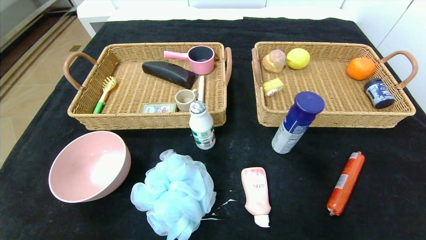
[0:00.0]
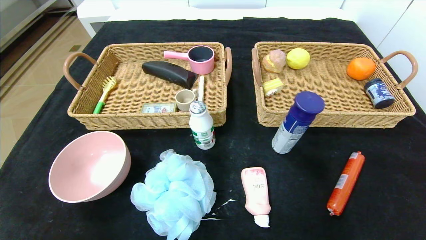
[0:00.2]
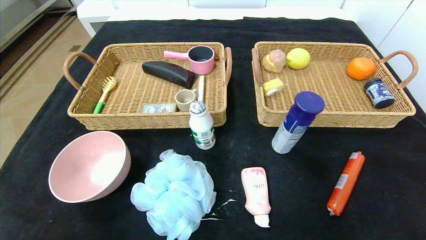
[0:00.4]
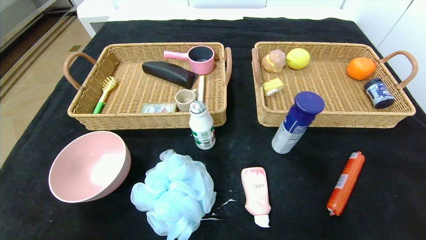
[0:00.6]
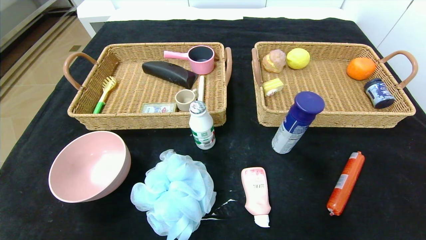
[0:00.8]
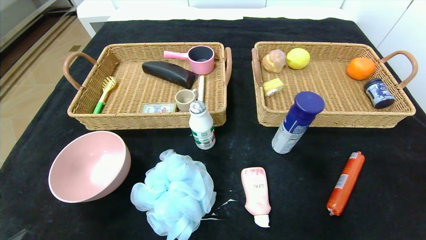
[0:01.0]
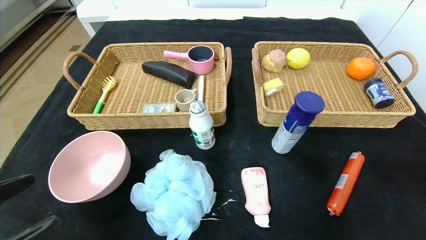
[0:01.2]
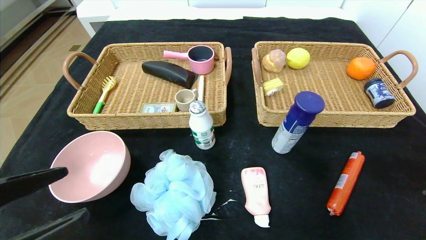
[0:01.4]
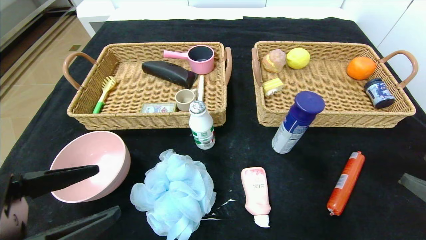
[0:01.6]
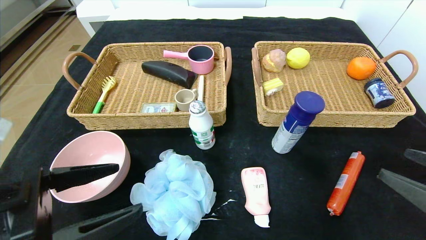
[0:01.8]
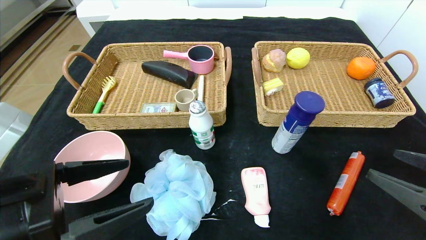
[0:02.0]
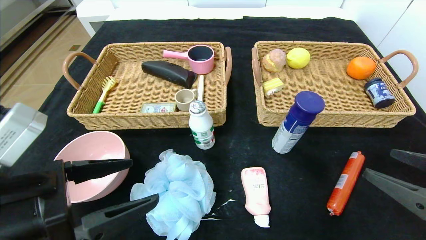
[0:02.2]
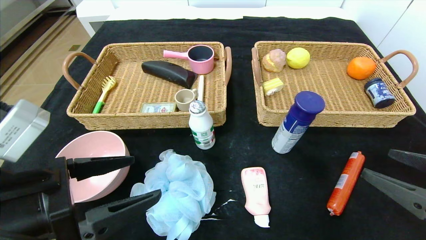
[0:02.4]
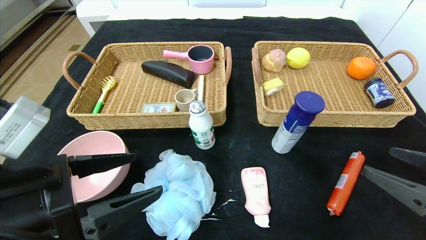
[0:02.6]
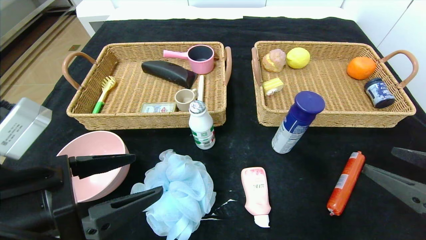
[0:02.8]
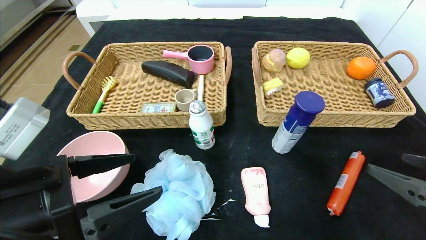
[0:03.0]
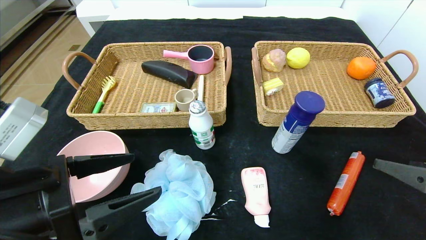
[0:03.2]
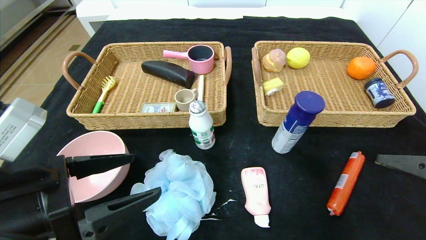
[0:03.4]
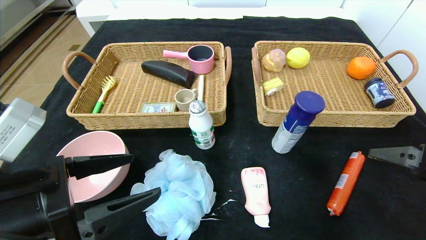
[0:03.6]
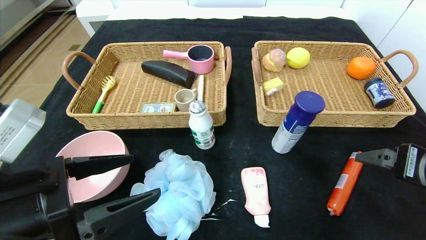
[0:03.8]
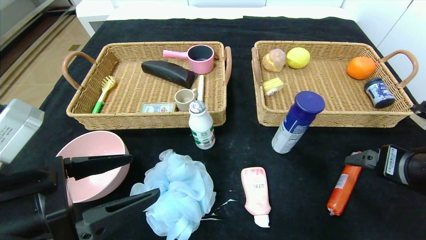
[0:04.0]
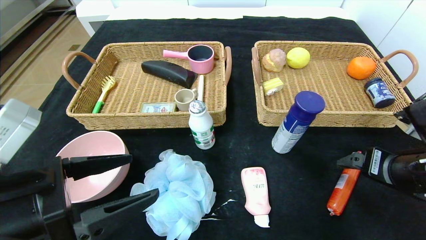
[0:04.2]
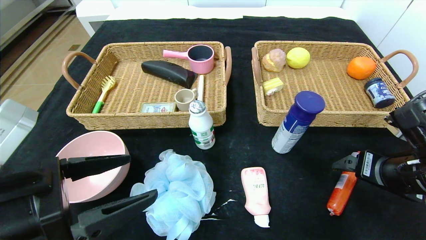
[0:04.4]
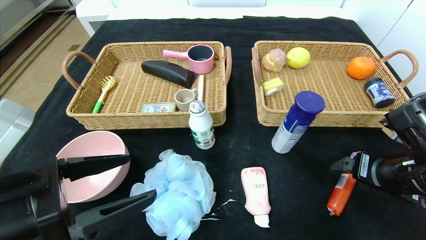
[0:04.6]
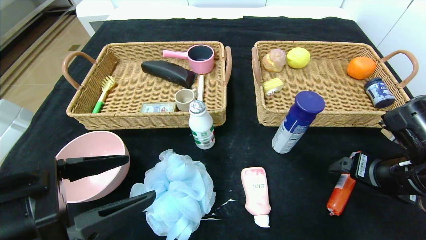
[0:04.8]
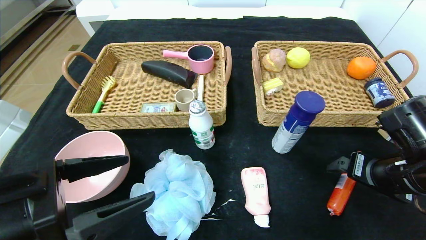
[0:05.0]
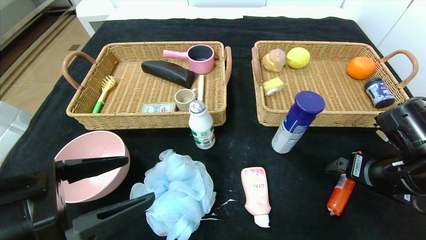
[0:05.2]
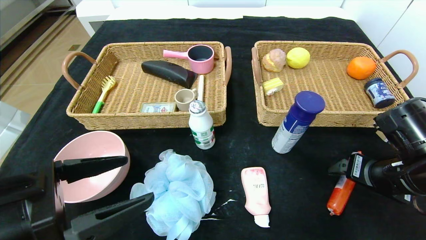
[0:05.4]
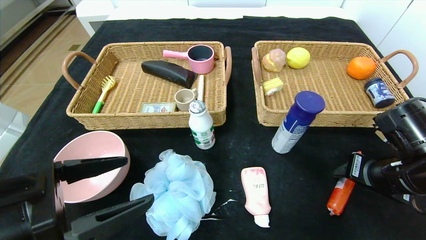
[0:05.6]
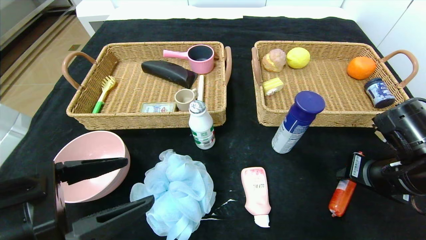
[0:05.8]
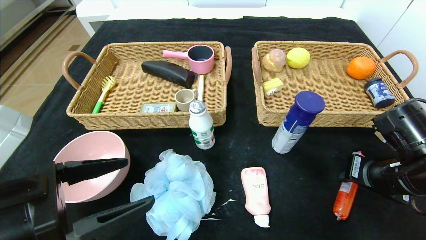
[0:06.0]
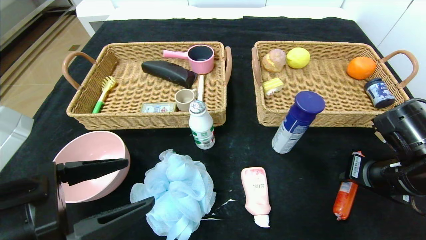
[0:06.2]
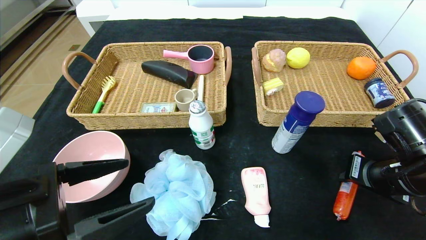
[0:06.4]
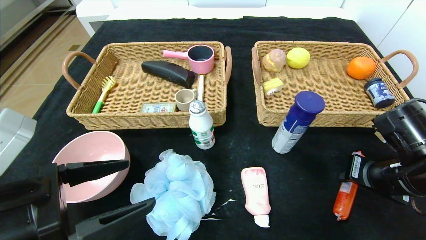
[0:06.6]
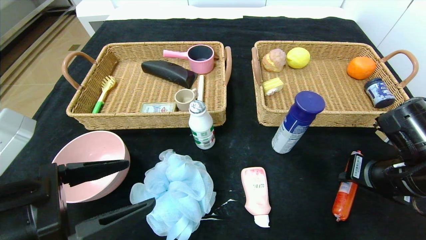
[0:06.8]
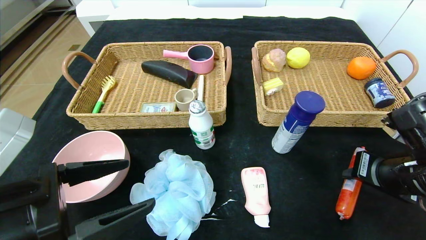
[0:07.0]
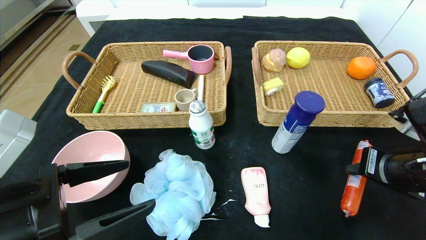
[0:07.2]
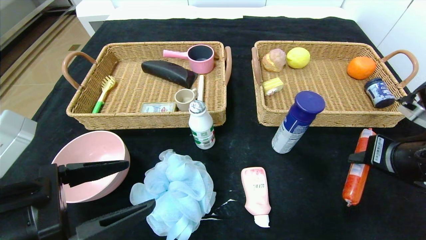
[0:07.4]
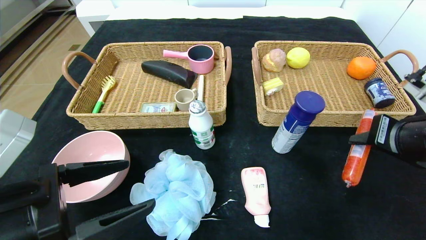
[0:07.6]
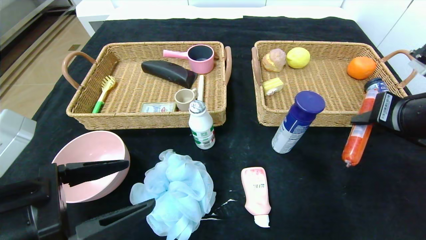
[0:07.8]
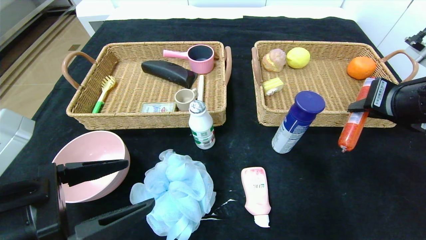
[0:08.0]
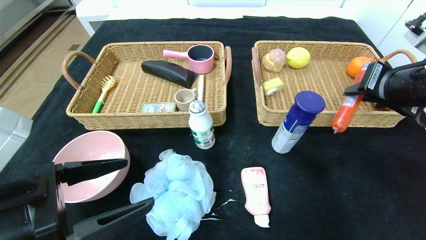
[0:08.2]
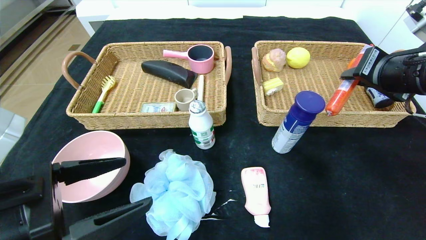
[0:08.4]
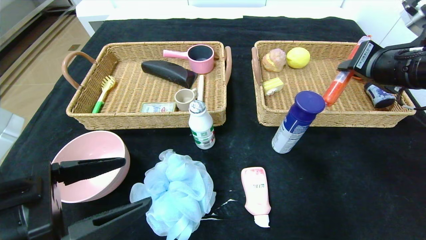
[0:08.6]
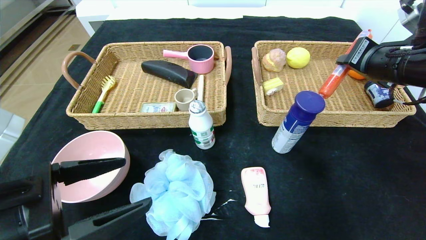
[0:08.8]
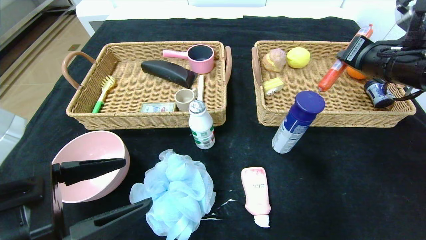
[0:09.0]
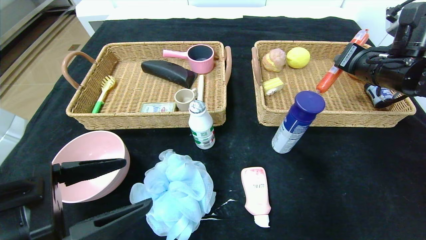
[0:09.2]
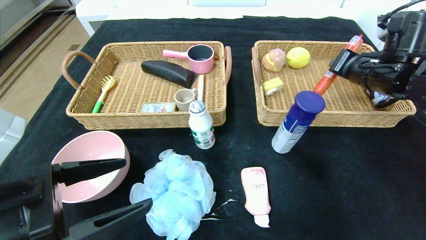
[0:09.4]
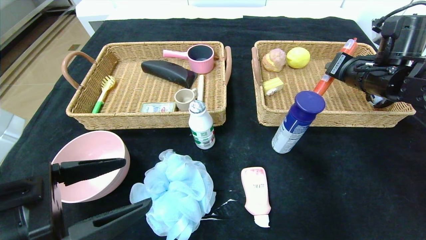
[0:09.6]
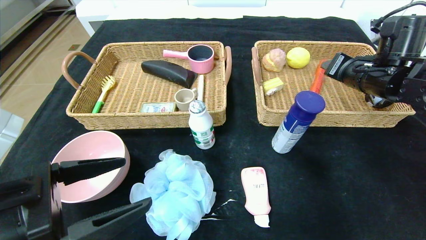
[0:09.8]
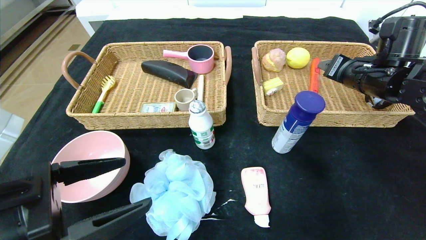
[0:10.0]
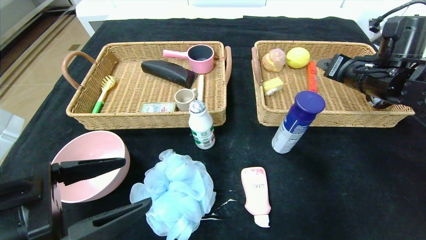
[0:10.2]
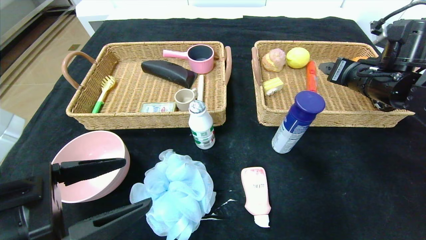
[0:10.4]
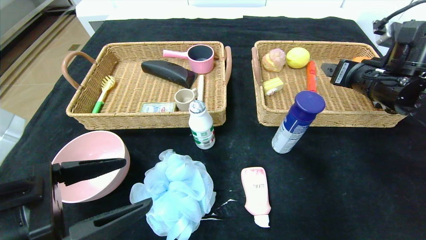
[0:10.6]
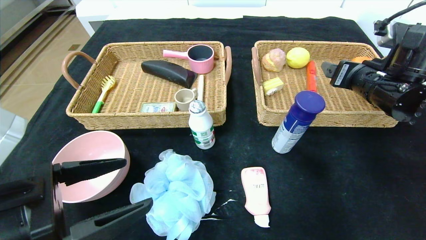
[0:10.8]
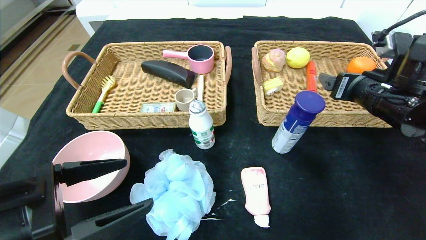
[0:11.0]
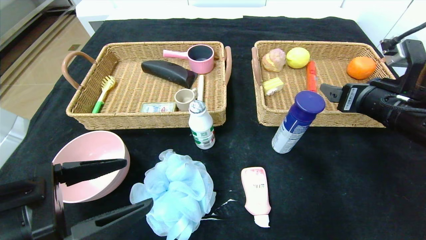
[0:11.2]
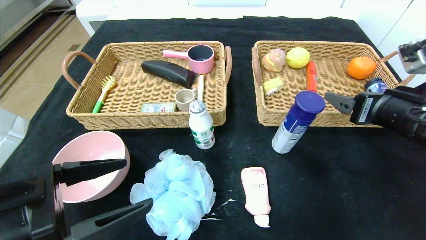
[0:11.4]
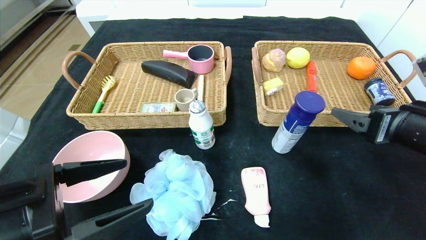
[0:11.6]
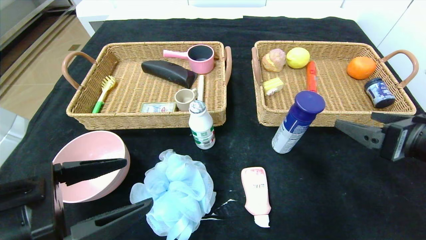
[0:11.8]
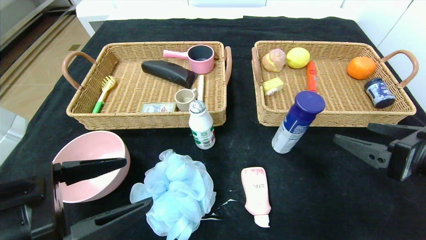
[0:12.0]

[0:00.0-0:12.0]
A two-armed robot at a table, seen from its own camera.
Step, 0:00.0 to 0:09.8: Grasp the sausage and put it in the right basket.
0:00.0 to 0:01.6: Both grippers travel together upward and forward, some 20 cm.
0:01.6 to 0:03.0: The grippers stay close to where they were, moving slightly.
0:03.0 to 0:04.4: The right gripper is displaced forward by approximately 10 cm.
0:04.4 to 0:06.0: The right gripper closes.
0:06.0 to 0:07.6: The right gripper goes approximately 10 cm upward.
0:07.6 to 0:09.0: The right gripper travels forward and upward by roughly 15 cm.
0:09.0 to 0:10.4: The right gripper opens up.
0:10.4 to 0:12.0: The right gripper is displaced backward by about 20 cm.

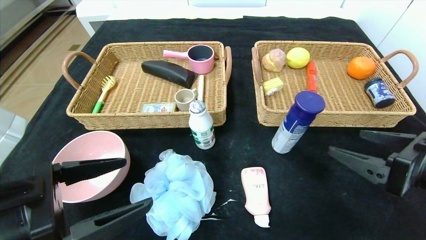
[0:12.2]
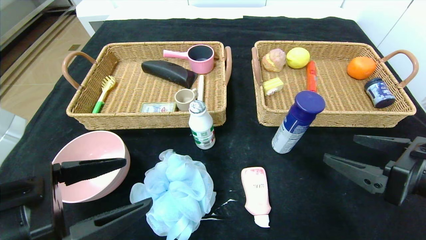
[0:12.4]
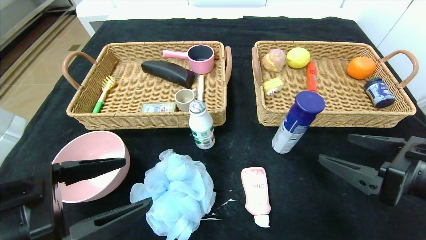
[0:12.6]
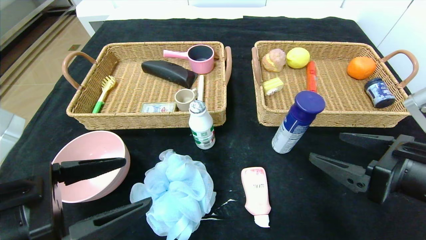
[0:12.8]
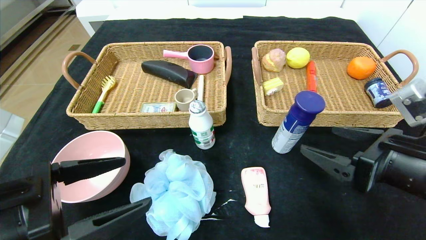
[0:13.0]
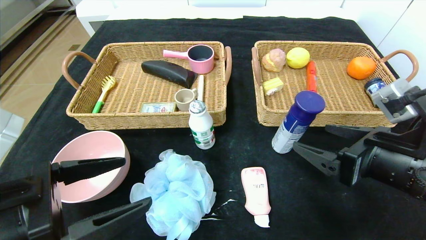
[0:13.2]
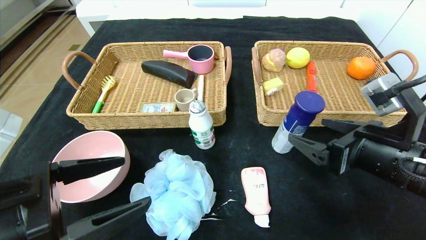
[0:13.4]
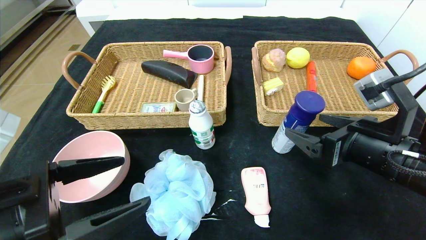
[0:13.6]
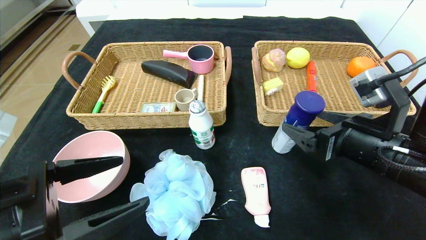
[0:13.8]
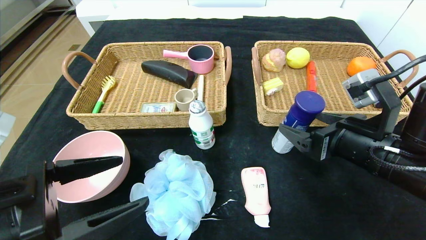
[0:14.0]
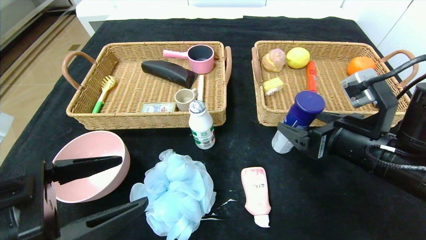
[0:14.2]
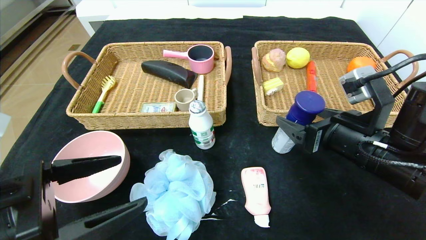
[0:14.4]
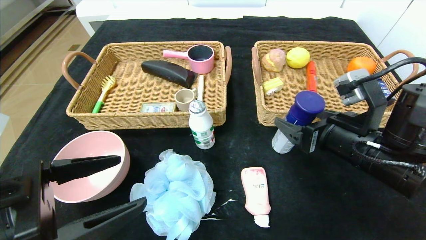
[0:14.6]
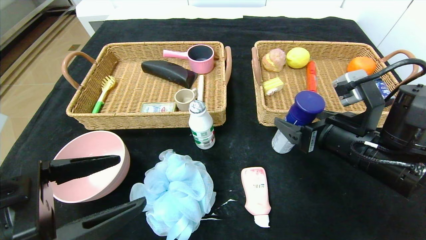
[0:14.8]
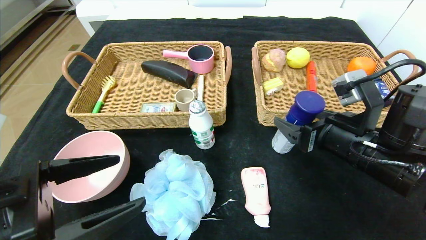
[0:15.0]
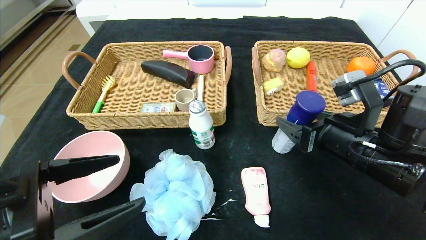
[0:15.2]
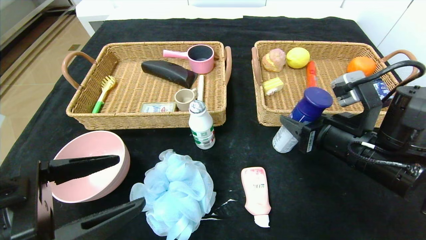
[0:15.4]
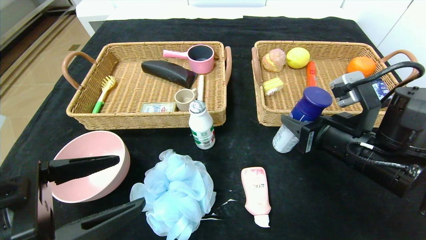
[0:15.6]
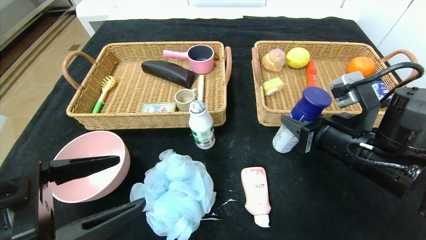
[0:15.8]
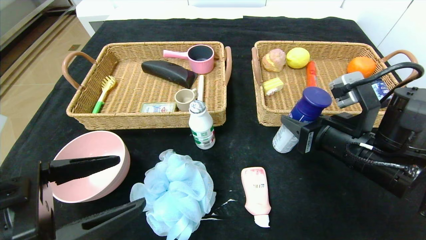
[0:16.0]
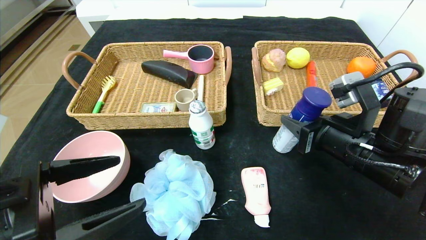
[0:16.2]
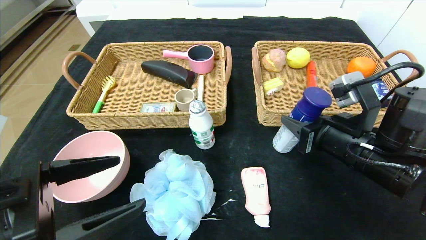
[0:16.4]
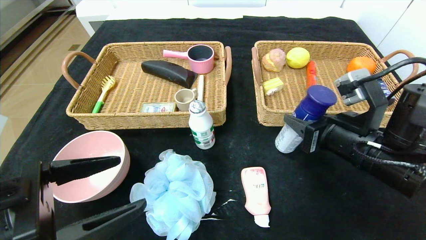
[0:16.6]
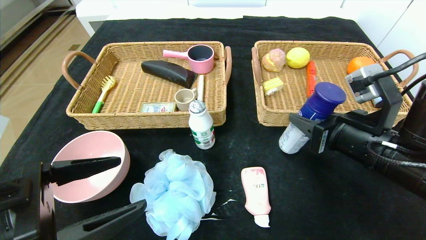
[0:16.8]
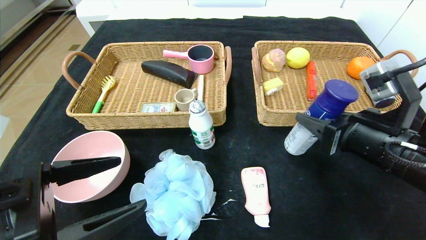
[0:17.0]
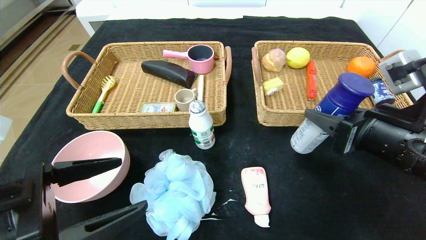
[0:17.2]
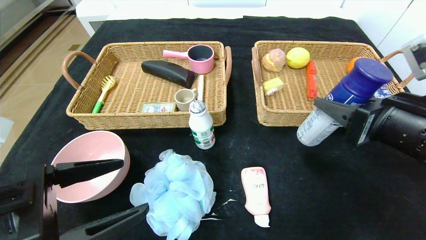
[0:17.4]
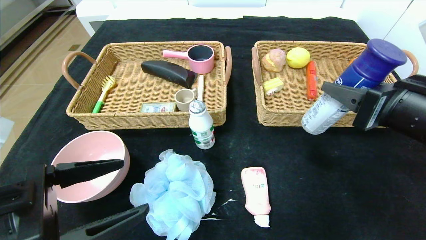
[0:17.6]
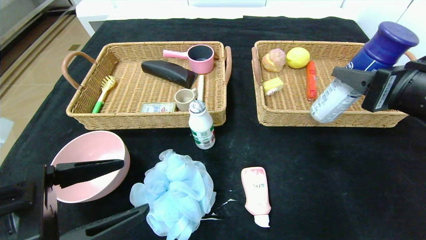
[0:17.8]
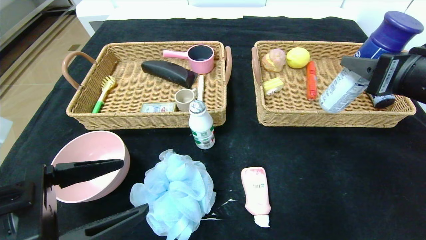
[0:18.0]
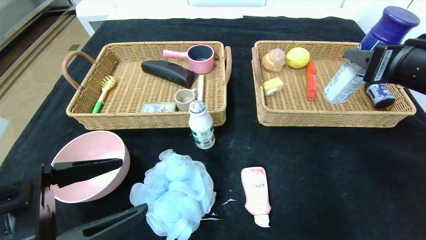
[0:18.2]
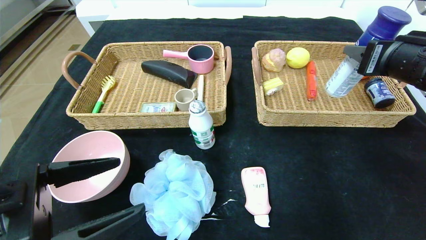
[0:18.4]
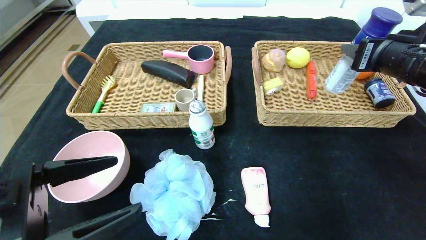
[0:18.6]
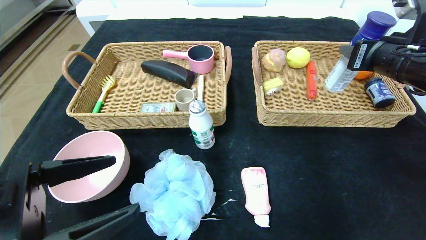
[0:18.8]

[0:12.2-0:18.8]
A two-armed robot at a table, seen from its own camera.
0:12.2 to 0:13.8: The right gripper heads to the left and forward, covering approximately 10 cm.
0:13.8 to 0:15.4: The right gripper closes up.
0:15.4 to 0:17.2: The right gripper shifts by approximately 5 cm.
0:17.2 to 0:18.8: The right gripper heads forward, upward and to the right, covering roughly 15 cm.
